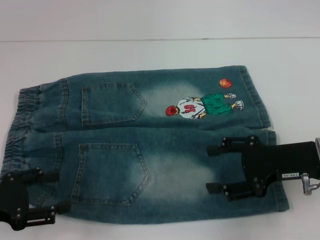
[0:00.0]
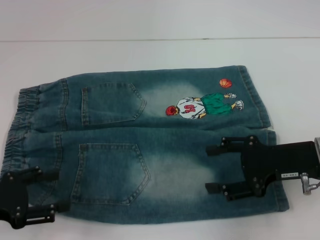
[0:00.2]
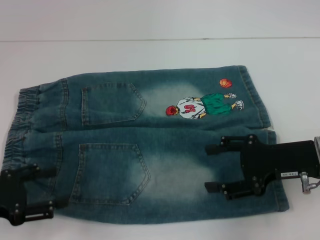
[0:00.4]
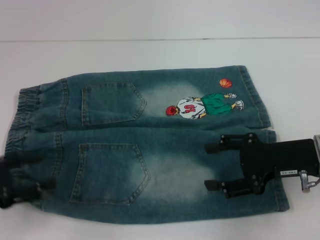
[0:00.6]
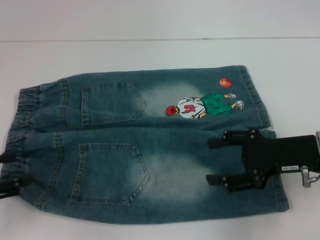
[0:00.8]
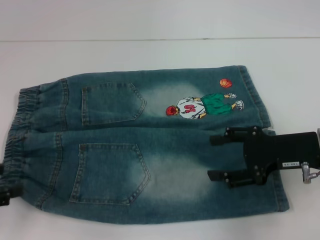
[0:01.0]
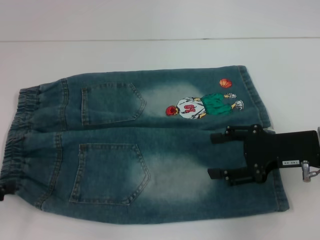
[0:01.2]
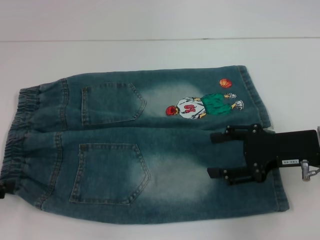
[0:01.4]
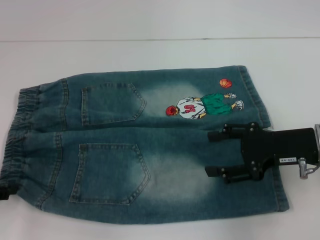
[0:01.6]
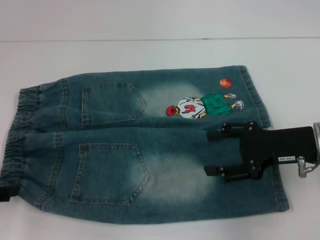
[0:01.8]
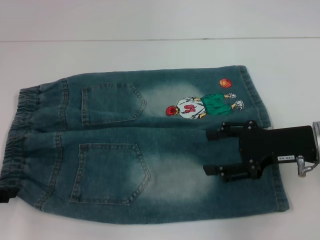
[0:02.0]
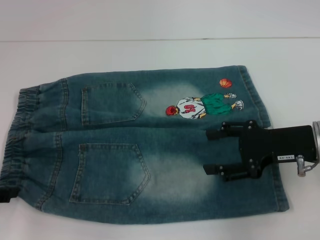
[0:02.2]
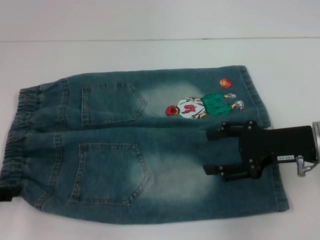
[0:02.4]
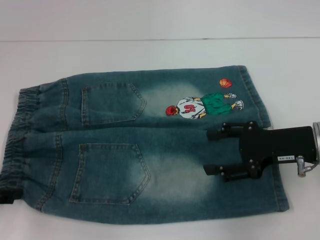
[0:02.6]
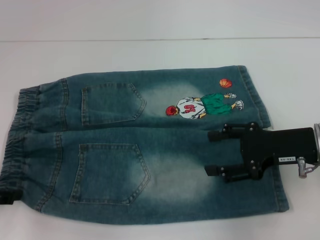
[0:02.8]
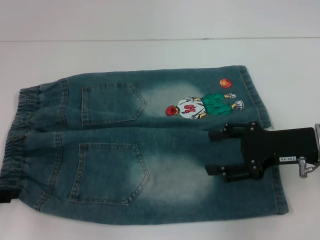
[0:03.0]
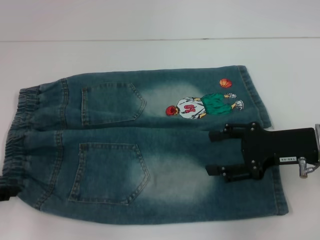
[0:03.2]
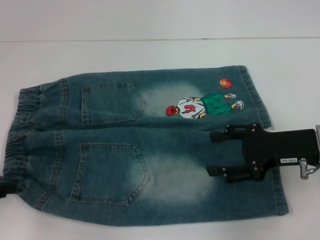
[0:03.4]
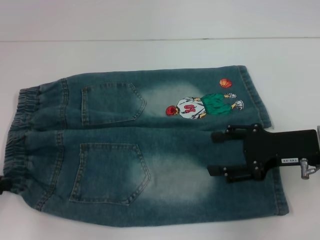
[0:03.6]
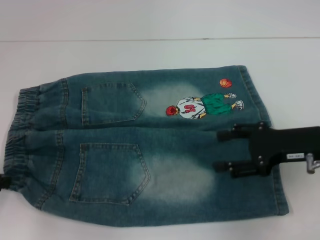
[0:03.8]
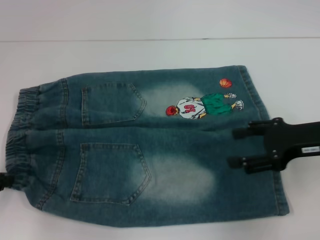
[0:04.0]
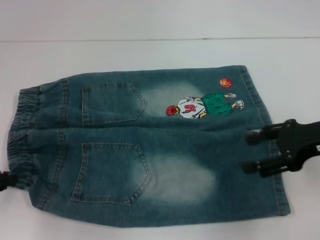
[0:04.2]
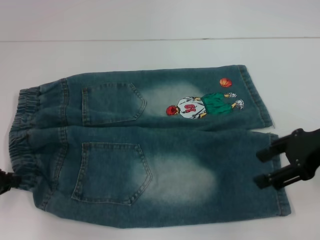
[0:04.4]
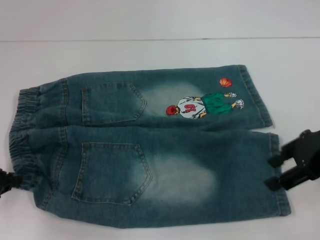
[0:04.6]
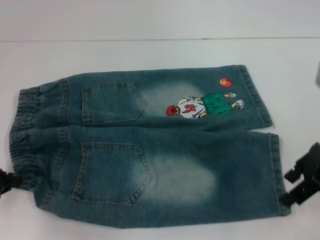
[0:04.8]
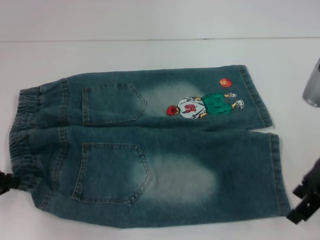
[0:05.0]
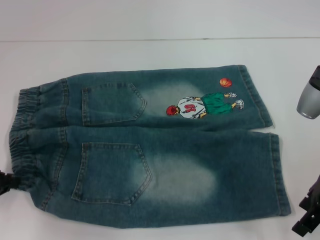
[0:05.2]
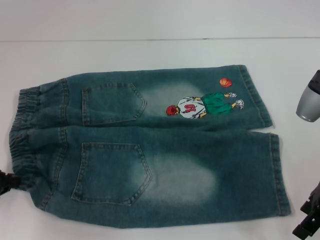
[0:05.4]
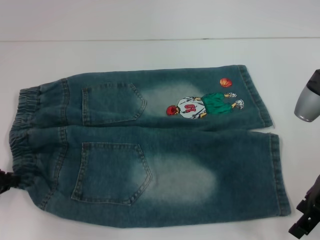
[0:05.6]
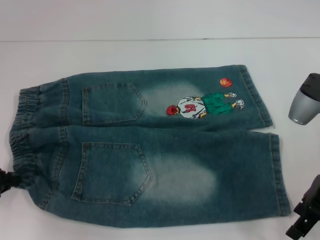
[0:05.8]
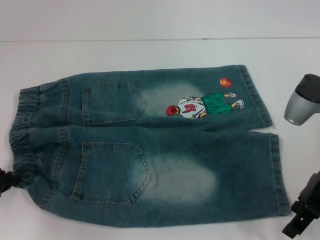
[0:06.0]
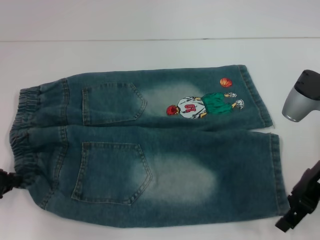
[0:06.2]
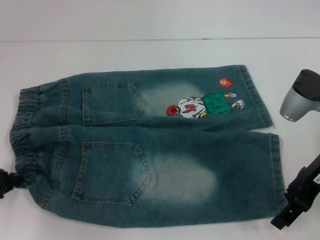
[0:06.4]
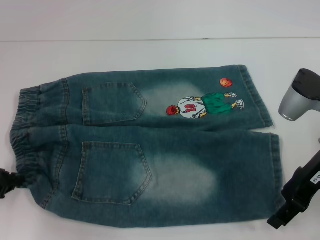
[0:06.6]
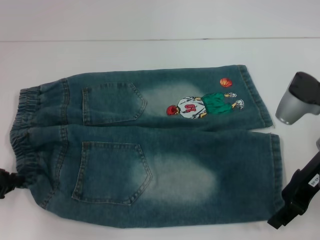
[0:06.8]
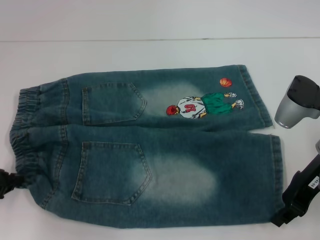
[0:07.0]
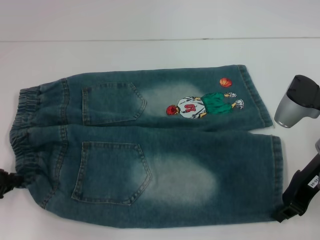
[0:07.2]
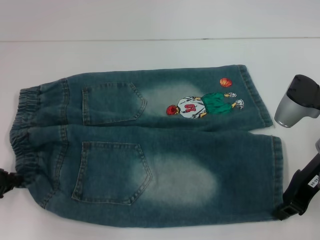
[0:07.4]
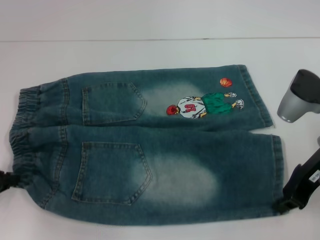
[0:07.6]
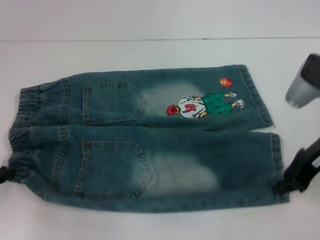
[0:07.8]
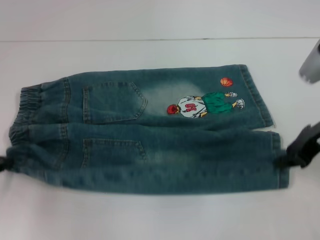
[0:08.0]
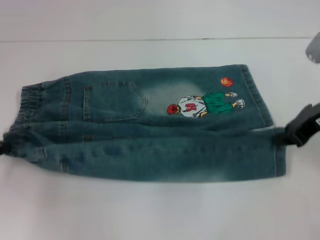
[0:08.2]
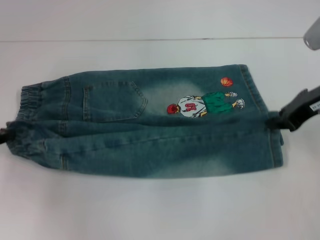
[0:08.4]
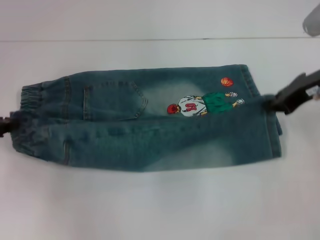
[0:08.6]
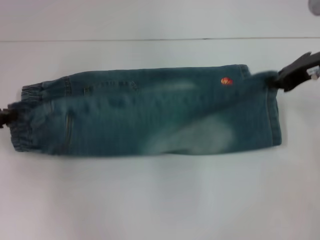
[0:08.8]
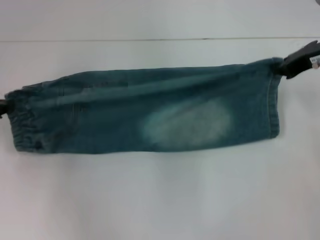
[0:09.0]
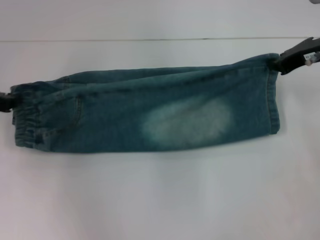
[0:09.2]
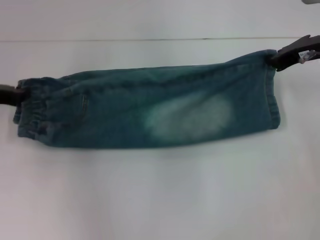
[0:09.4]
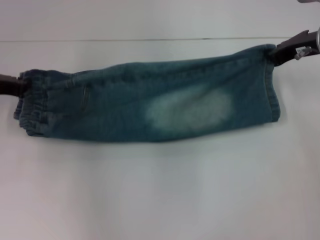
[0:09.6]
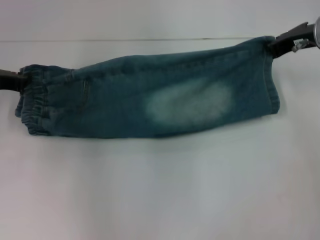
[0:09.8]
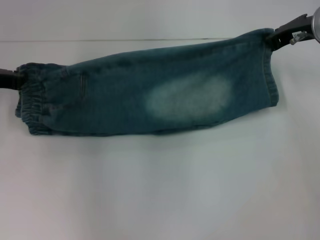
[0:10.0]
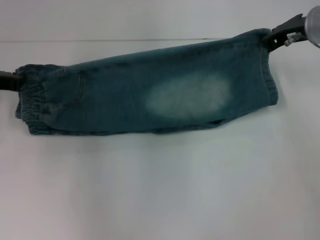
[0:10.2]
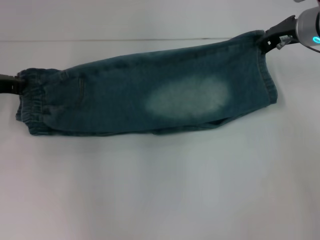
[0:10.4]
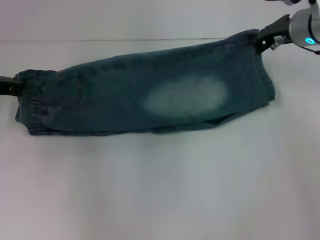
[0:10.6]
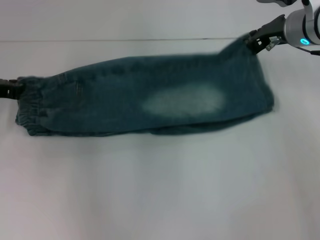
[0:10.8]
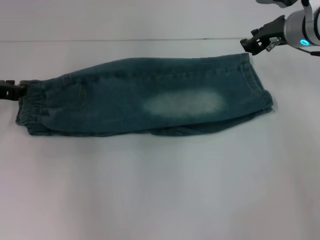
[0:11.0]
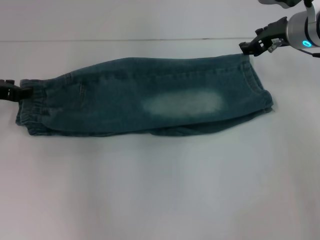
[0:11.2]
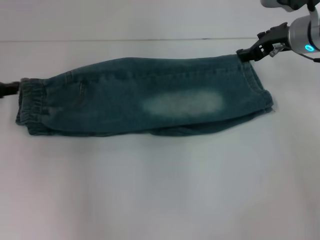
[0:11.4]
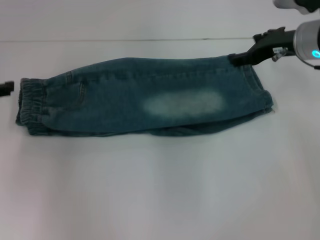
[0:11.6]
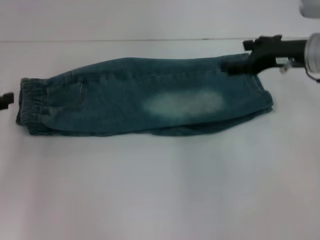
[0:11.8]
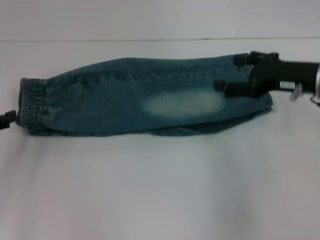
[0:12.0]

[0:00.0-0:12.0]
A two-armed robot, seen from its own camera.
Step, 0:00.0 to 0:04.2: Hold the lower left waistband with your left hand.
Step, 0:04.6 to 0:07.4: Grab the lower right pant leg with your right hand.
Step, 0:07.6 to 0:10.8: Fold upward with your right hand.
0:00.0 to 0:01.6: The left gripper ends up some 5 cm from where it was.
0:01.6 to 0:03.0: There are only small adjustments of the grippers.
0:03.0 to 0:04.4: The left gripper closes. The right gripper shifts some 5 cm upward.
0:06.0 to 0:07.6: The right gripper closes.
0:07.6 to 0:09.0: The right gripper goes some 10 cm forward and upward. The left gripper is displaced forward by roughly 5 cm.
0:09.0 to 0:10.4: The left gripper shifts by approximately 5 cm. The right gripper ends up roughly 5 cm from where it was.
0:10.4 to 0:12.0: The left gripper goes some 10 cm backward and to the left, and opens its fingers, while the right gripper travels backward by about 10 cm, and opens up.

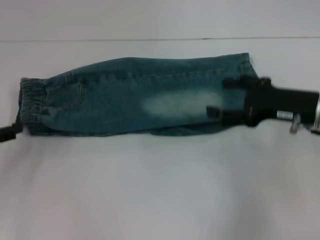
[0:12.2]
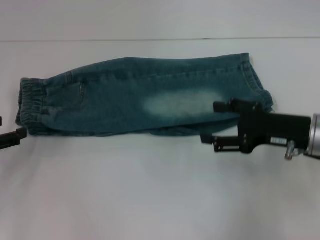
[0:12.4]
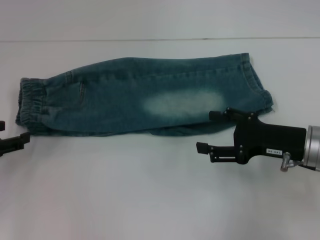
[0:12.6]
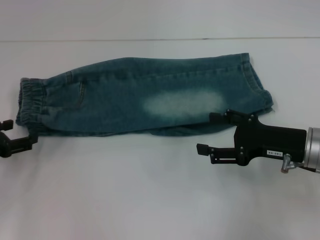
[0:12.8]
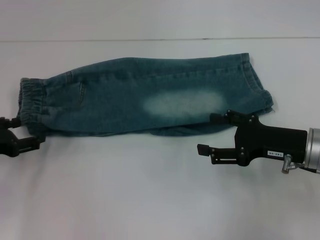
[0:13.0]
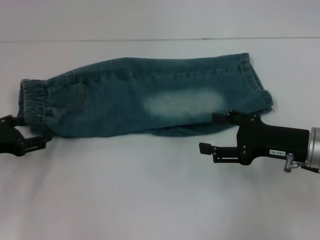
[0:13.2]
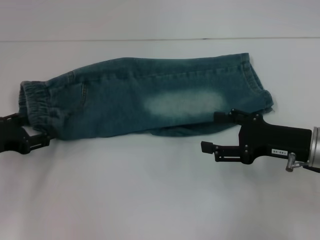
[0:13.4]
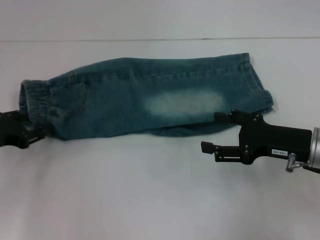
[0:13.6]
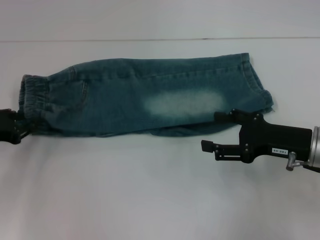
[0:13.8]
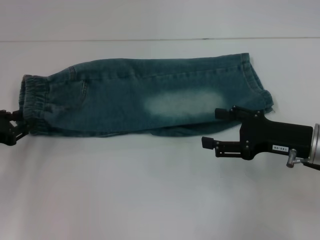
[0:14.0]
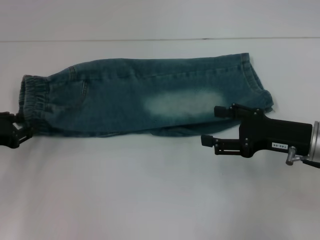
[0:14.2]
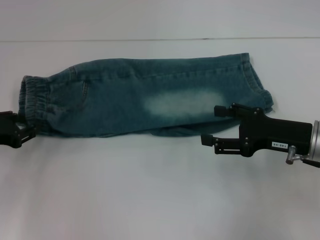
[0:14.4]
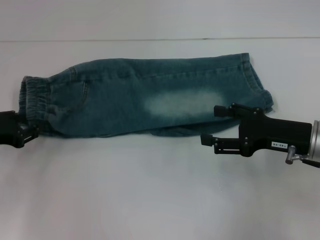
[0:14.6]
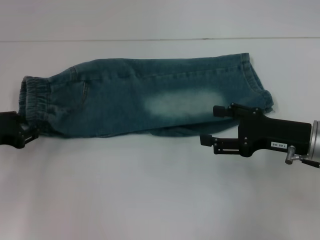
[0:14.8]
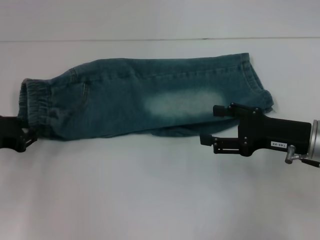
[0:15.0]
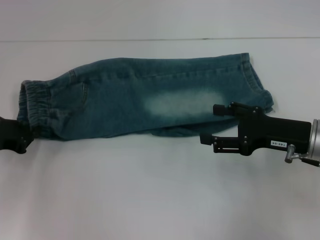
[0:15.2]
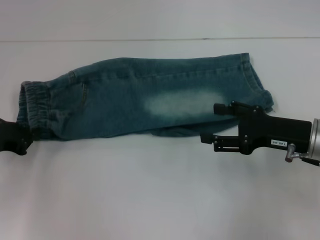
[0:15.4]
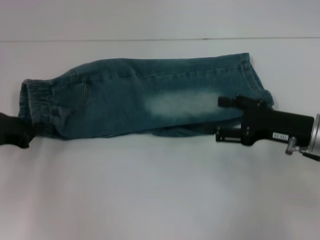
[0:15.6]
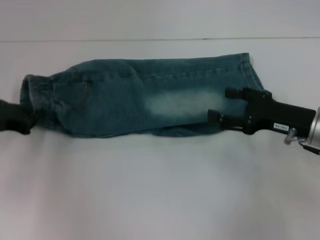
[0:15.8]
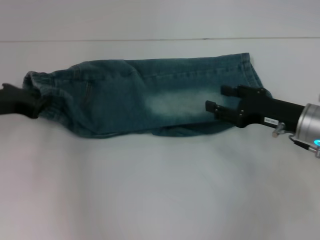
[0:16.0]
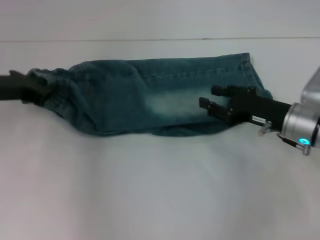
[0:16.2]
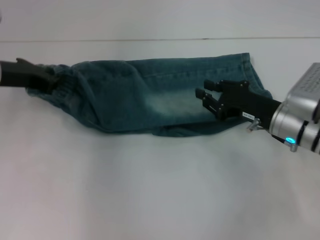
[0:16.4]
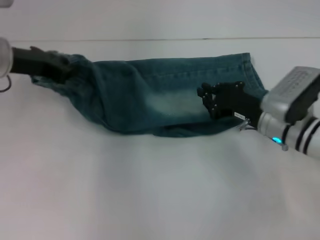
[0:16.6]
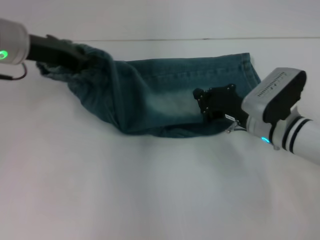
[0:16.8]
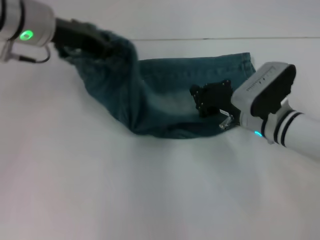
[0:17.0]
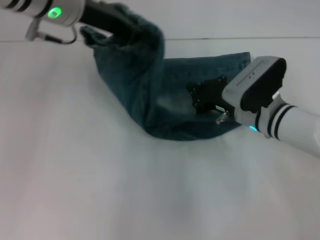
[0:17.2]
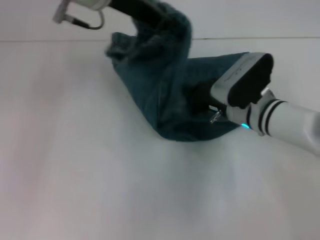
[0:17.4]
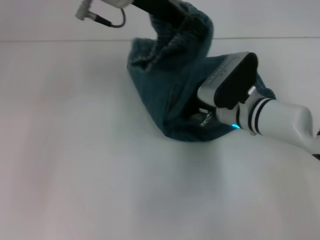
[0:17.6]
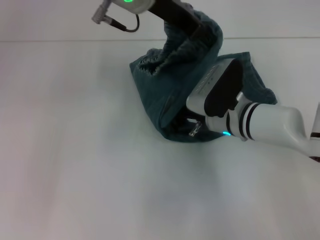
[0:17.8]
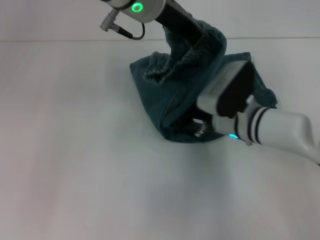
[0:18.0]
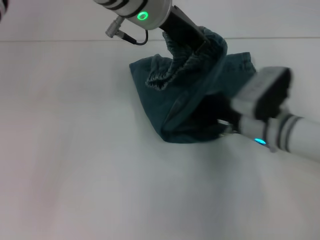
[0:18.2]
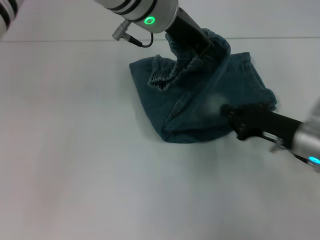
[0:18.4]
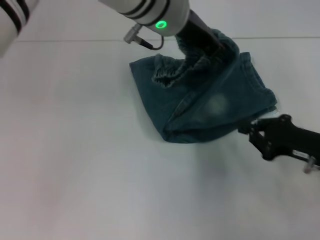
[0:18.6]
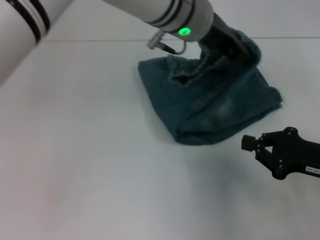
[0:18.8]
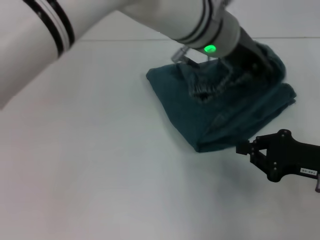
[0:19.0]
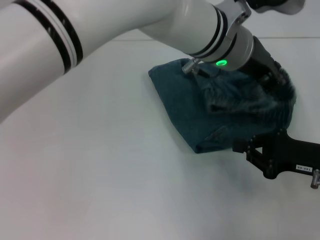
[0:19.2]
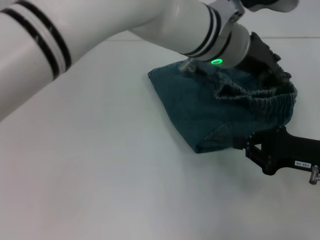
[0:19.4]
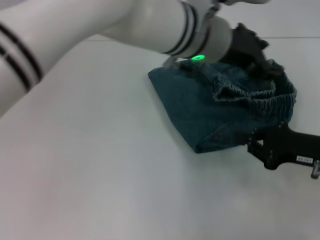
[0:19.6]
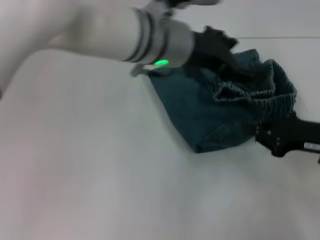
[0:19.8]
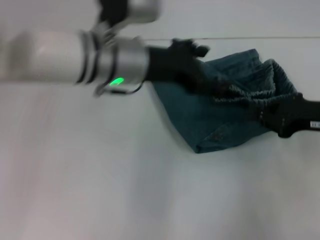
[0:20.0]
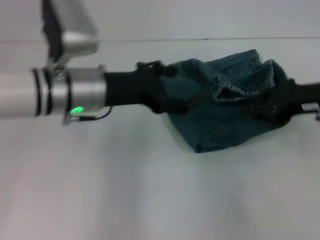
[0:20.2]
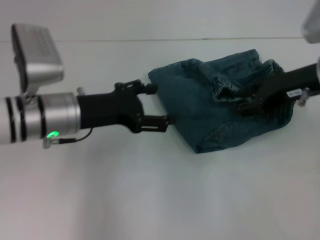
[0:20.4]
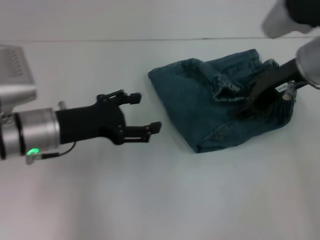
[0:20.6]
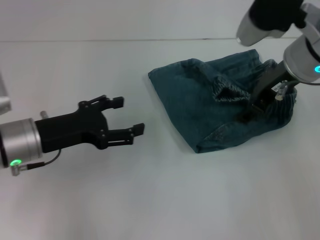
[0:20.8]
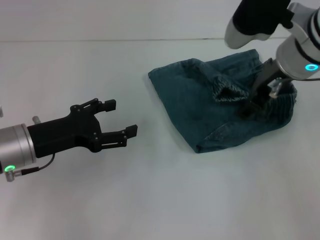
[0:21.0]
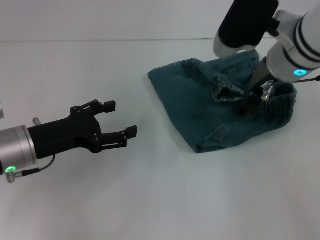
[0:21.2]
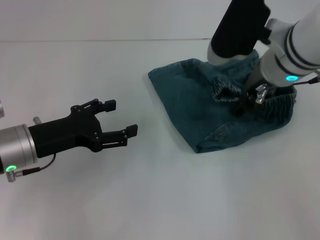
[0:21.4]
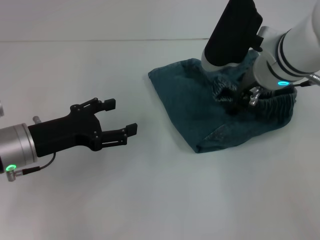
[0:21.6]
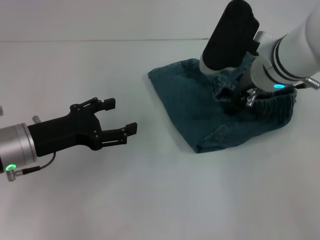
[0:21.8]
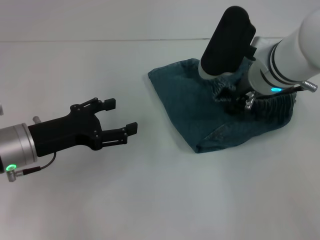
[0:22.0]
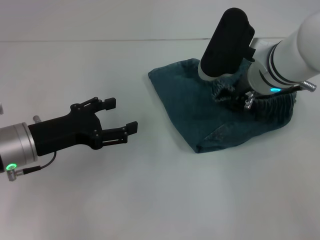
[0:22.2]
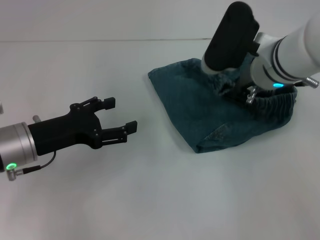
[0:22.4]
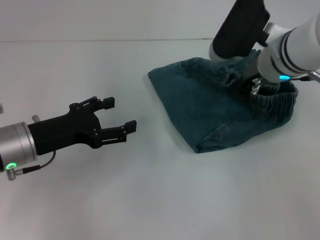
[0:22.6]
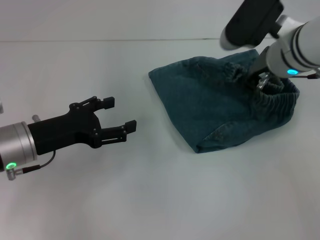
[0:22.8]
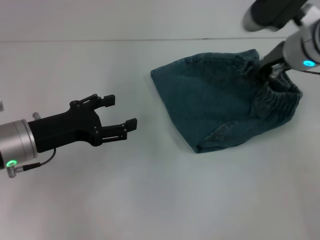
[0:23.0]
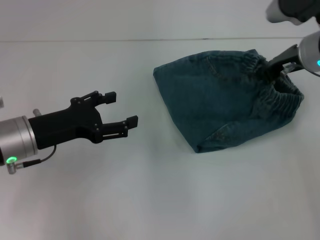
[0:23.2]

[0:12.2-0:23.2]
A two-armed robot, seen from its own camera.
Step, 0:12.2 to 0:15.6: Hold the waistband with your left hand.
Step, 0:15.8 to 0:17.6: Press the middle of the pants with your right hand.
Step, 0:18.0 to 0:19.4: Fold to the right with your left hand.
0:12.2 to 0:13.8: The left gripper moves roughly 5 cm, and closes up.
0:13.8 to 0:15.4: The left gripper closes.
0:15.4 to 0:17.0: The left gripper moves upward, to the right and forward, approximately 25 cm; the right gripper is displaced to the left and forward by approximately 10 cm, and closes.
0:17.0 to 0:18.4: The right gripper goes approximately 5 cm to the right, while the left gripper is displaced to the right by about 15 cm.
0:18.4 to 0:20.0: The left gripper moves downward, to the left and backward, roughly 10 cm, and opens its fingers. The right gripper heads upward and to the right, covering approximately 10 cm.
0:20.0 to 0:21.6: The right gripper goes approximately 15 cm to the left, and opens its fingers. The left gripper is displaced to the left, downward and backward by approximately 20 cm.
0:21.6 to 0:23.2: The right gripper travels to the right by approximately 10 cm, and closes up.
